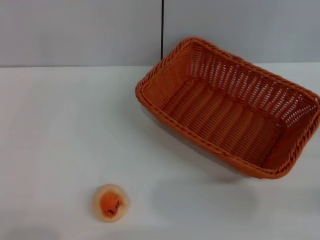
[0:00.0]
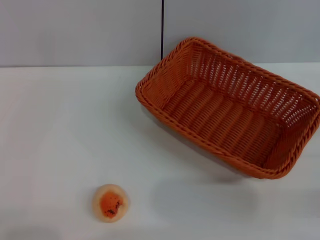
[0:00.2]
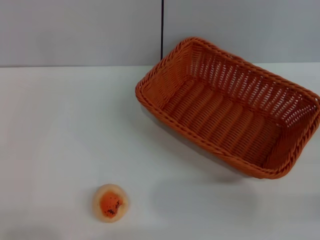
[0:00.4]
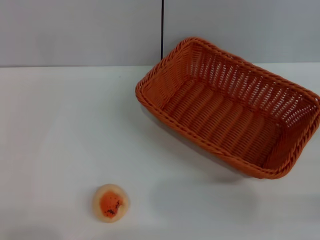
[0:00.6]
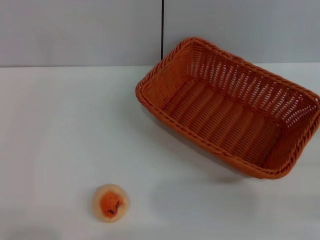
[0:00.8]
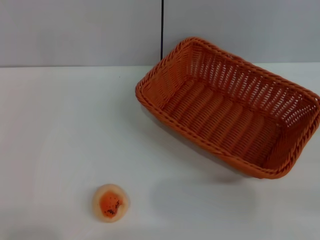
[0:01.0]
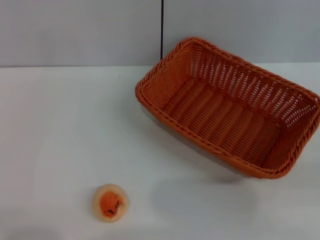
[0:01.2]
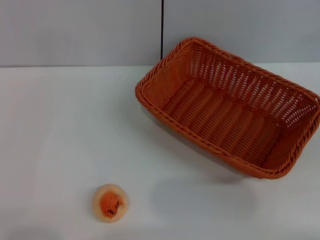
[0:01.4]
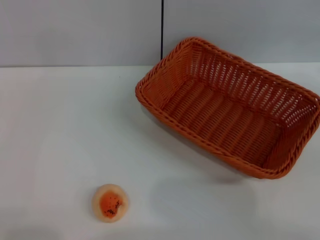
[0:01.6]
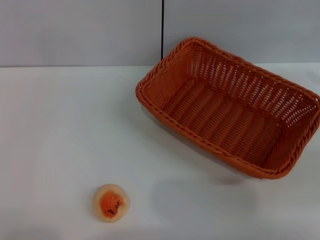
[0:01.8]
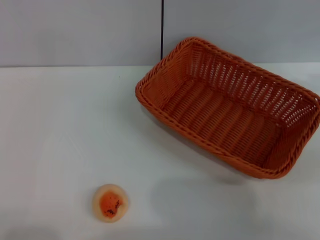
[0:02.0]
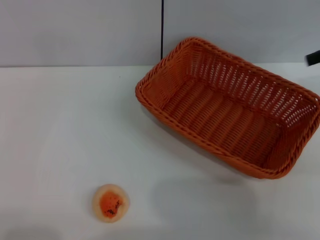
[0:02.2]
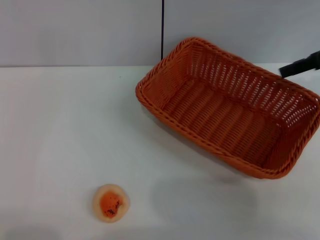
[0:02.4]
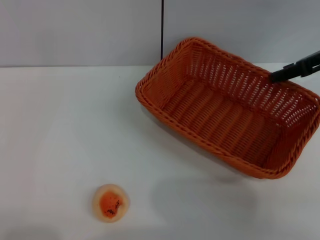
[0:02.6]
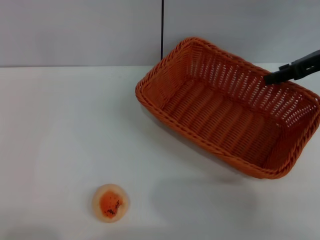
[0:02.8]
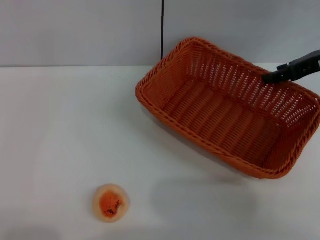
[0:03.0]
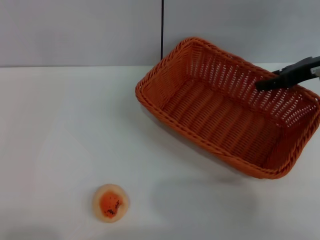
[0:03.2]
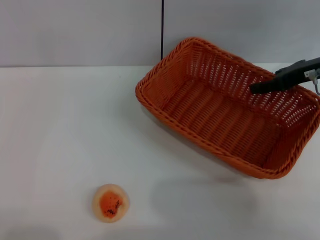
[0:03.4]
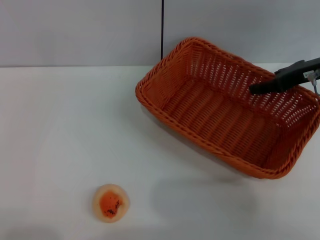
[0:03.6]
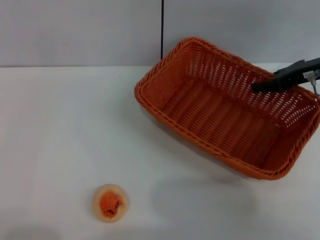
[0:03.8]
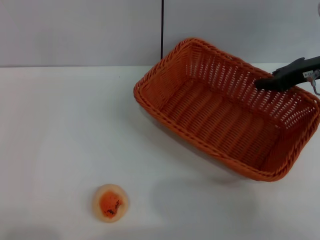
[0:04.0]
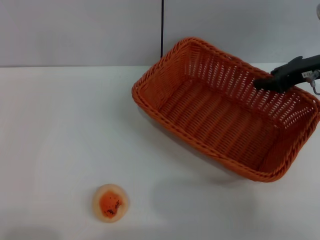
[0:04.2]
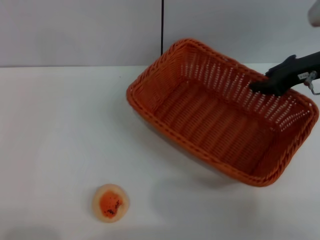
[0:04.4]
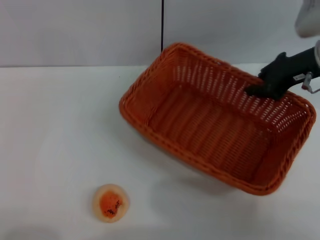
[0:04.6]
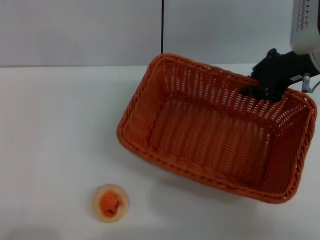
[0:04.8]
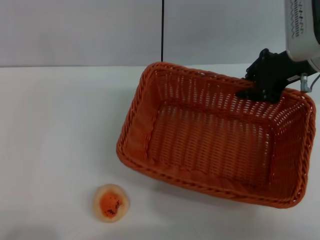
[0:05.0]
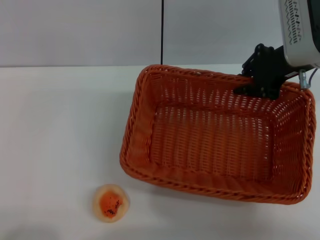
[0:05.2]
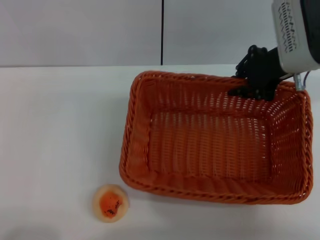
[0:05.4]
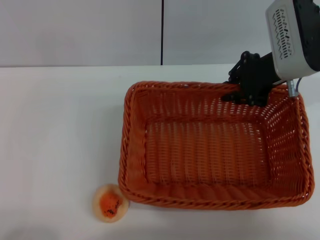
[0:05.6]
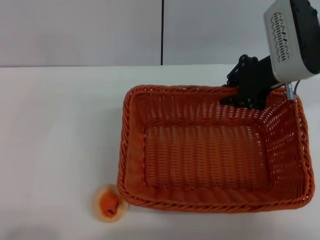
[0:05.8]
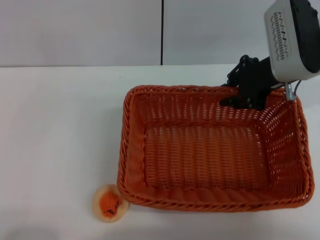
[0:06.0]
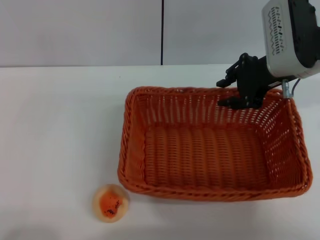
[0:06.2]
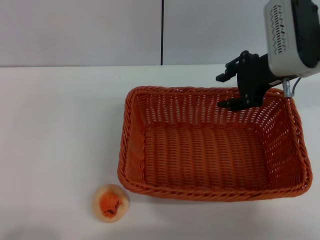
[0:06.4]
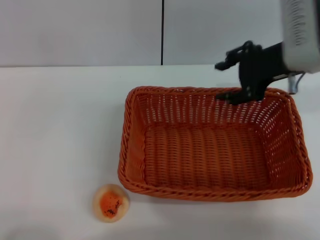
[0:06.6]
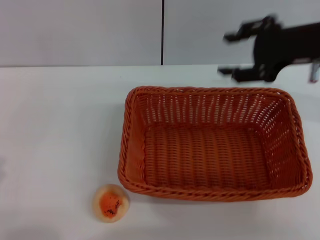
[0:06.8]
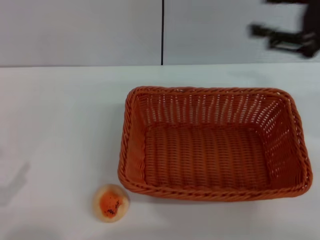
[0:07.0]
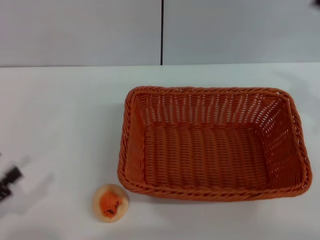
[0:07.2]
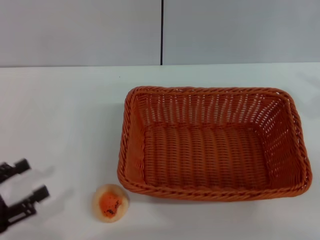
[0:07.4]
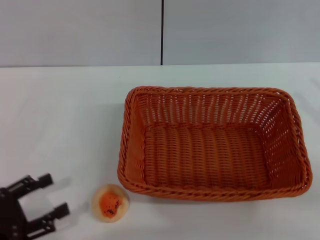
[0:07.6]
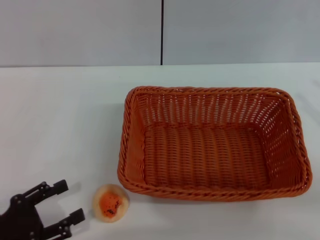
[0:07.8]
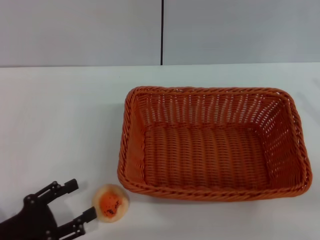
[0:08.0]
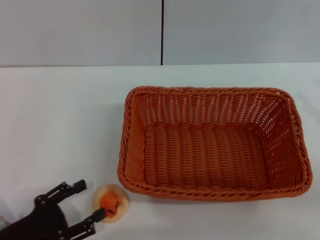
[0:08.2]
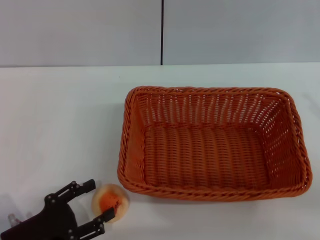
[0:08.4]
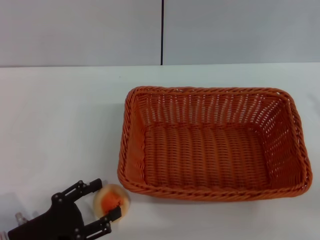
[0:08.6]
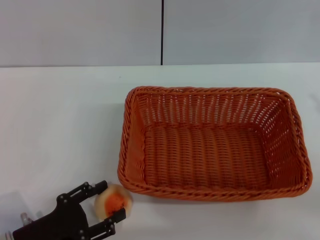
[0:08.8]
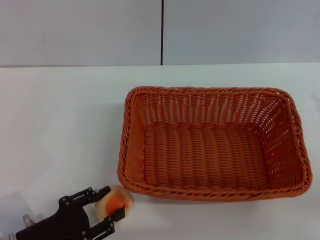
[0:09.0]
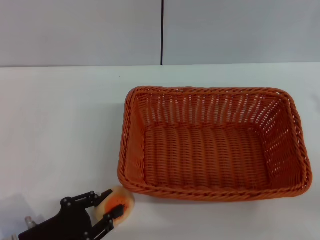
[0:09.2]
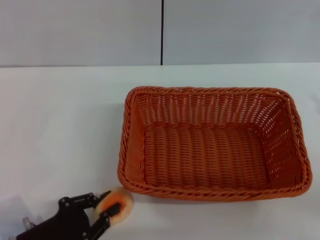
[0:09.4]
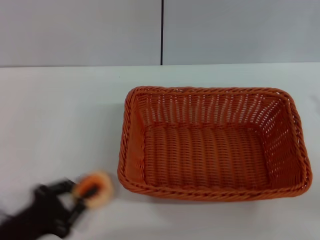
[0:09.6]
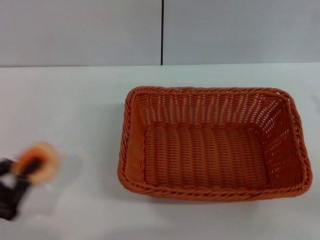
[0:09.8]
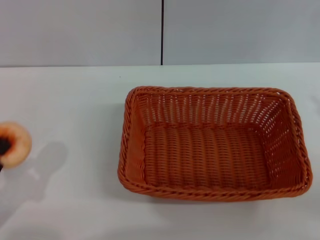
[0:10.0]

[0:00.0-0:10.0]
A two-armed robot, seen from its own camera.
Step, 0:00.0 to 0:06.6: Move the basket to the center of view with the right gripper.
Step, 0:06.8 to 0:09.6: Pick up the egg yolk pastry with the left gripper.
0:01.4 to 0:02.8: The right gripper goes about 20 cm to the left and forward.
0:02.8 to 0:04.2: The right gripper closes its fingers.
0:04.2 to 0:05.8: The right gripper shifts some 10 cm to the left.
0:05.8 to 0:07.2: The left gripper ends up about 5 cm from where it was; the right gripper is displaced to the right and backward by some 20 cm, and opens.
0:07.2 to 0:08.6: The left gripper moves to the right and downward, roughly 10 cm.
0:08.6 to 0:10.0: The left gripper heads to the left and upward, covering approximately 10 cm, and closes up.

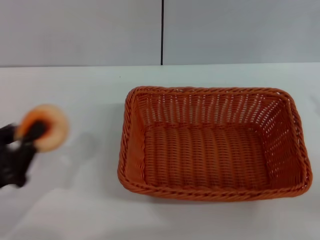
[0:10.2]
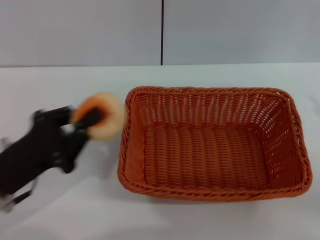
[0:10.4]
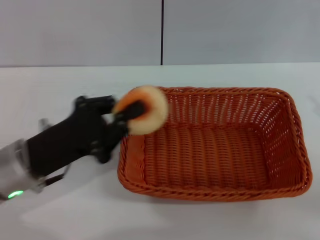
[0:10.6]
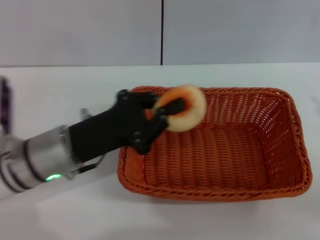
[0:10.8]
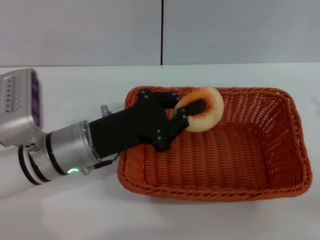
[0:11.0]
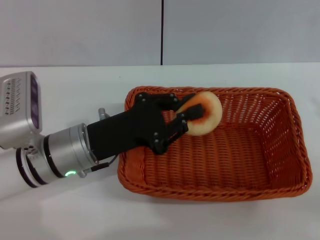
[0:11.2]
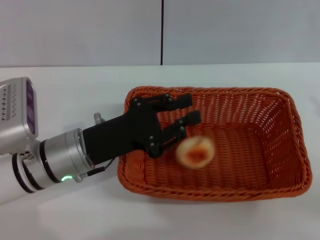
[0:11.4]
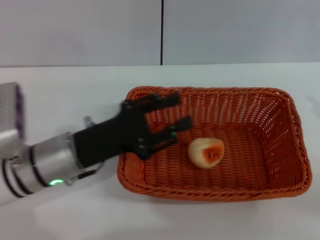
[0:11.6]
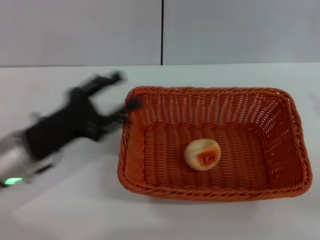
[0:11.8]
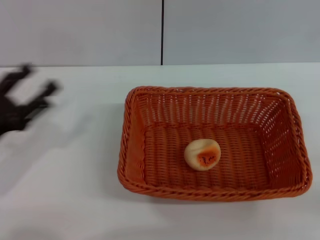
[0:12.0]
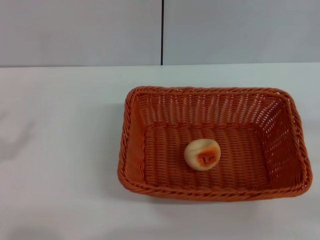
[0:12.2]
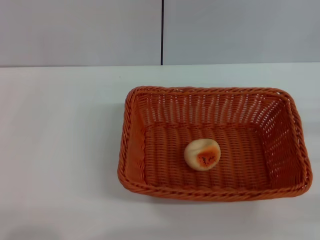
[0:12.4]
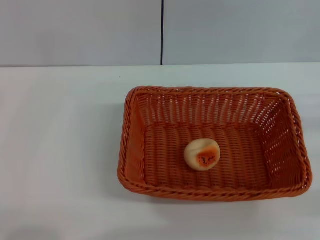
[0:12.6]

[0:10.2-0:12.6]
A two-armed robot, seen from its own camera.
Step, 0:10.2 to 0:11.4: Place the egg yolk pastry into the basket with the left gripper.
0:10.2 to 0:11.4: The left gripper goes some 15 cm to the right and forward.
0:11.4 to 0:12.6: The left gripper travels to the left and backward by some 25 cm, and opens its fingers; the right gripper travels downward by roughly 5 cm.

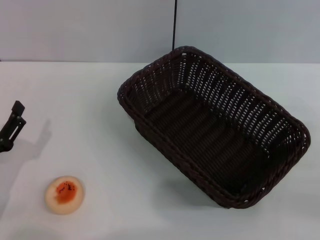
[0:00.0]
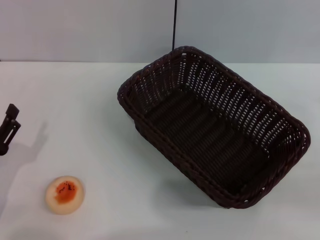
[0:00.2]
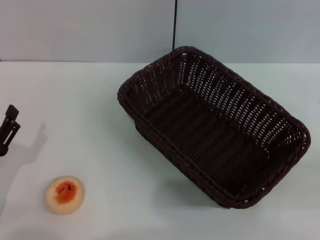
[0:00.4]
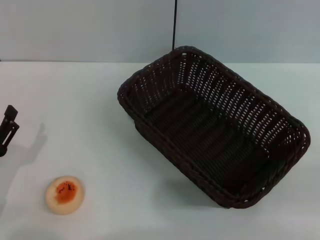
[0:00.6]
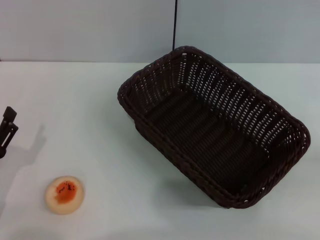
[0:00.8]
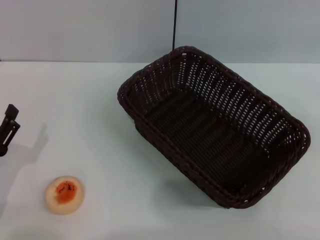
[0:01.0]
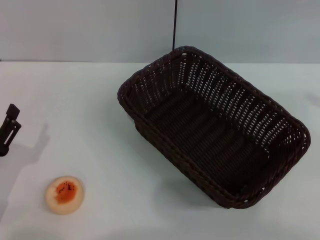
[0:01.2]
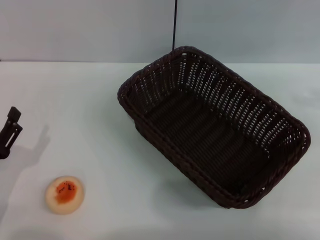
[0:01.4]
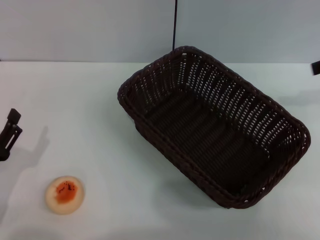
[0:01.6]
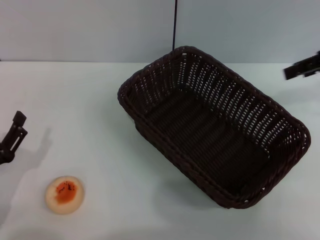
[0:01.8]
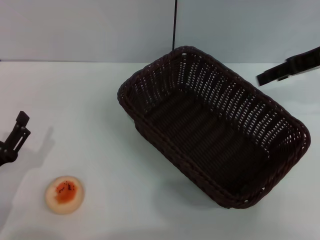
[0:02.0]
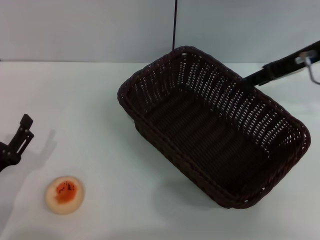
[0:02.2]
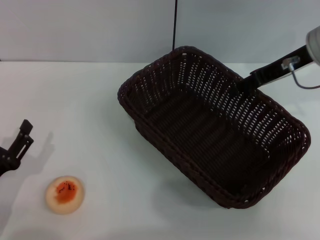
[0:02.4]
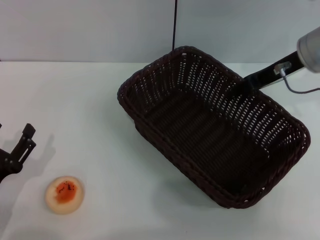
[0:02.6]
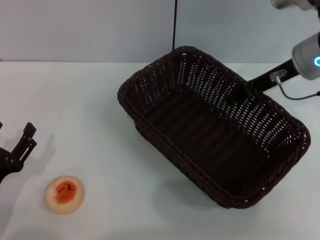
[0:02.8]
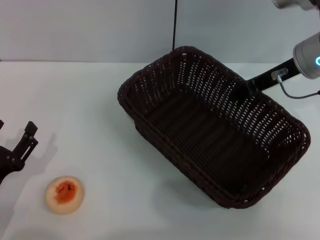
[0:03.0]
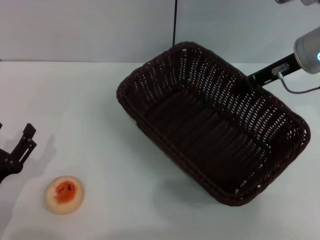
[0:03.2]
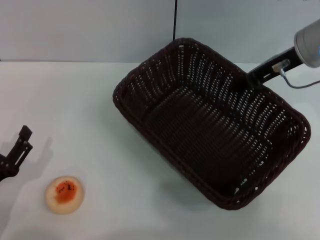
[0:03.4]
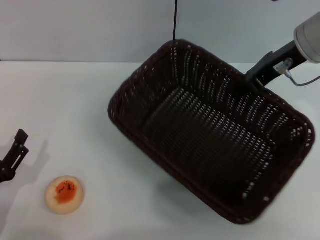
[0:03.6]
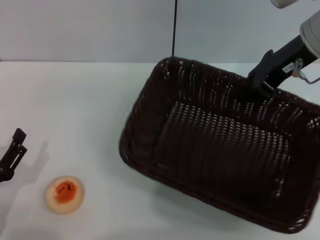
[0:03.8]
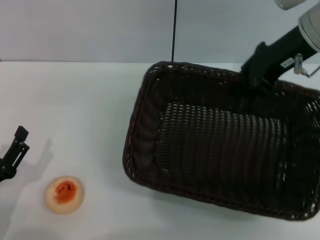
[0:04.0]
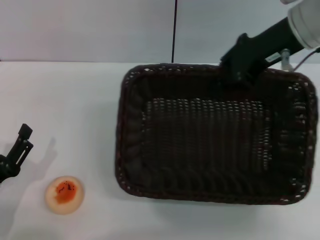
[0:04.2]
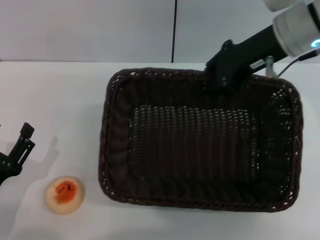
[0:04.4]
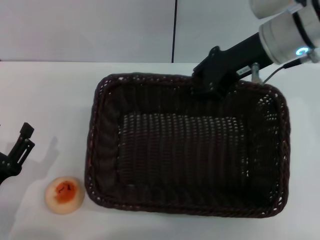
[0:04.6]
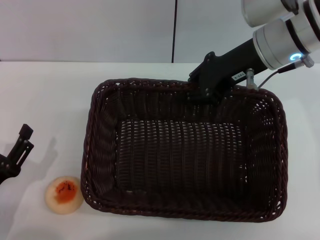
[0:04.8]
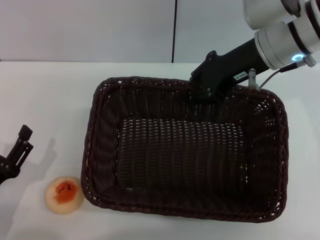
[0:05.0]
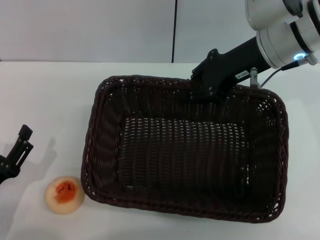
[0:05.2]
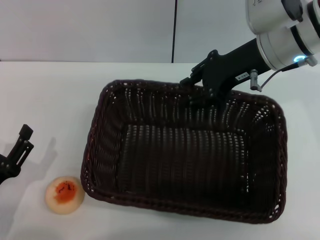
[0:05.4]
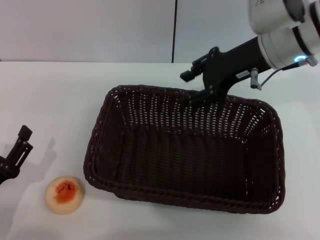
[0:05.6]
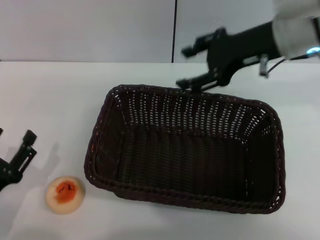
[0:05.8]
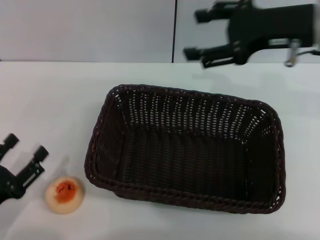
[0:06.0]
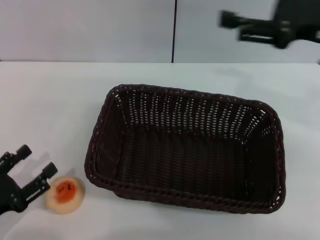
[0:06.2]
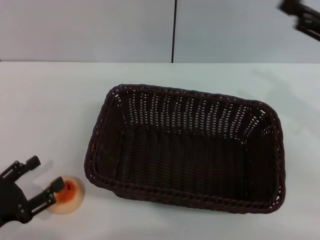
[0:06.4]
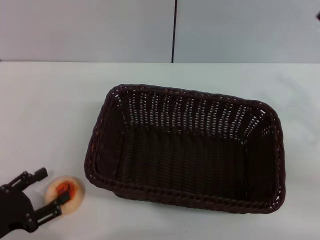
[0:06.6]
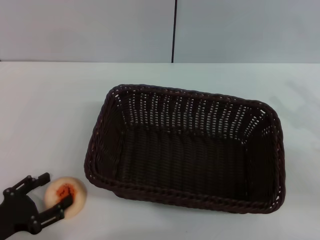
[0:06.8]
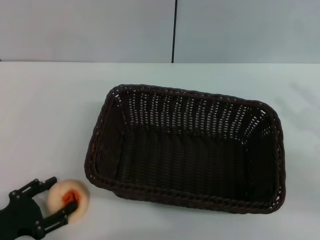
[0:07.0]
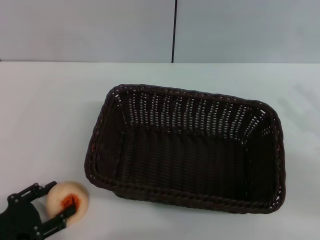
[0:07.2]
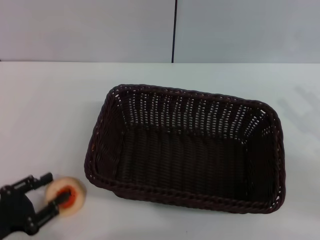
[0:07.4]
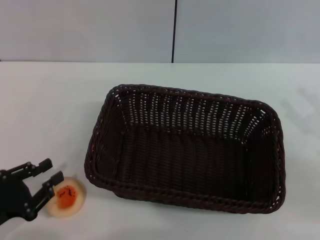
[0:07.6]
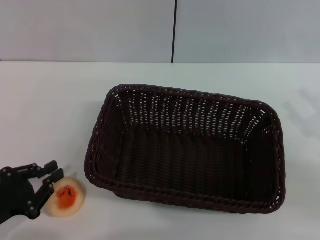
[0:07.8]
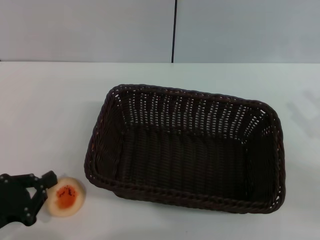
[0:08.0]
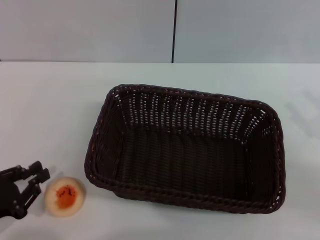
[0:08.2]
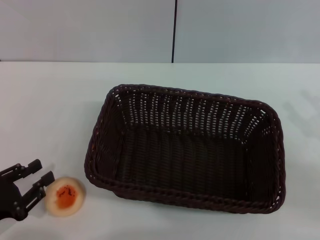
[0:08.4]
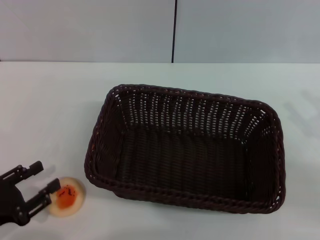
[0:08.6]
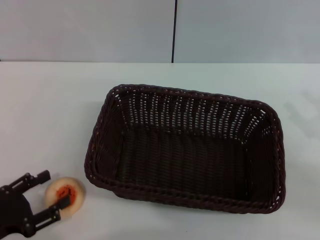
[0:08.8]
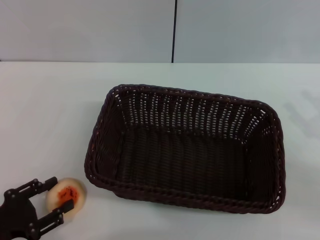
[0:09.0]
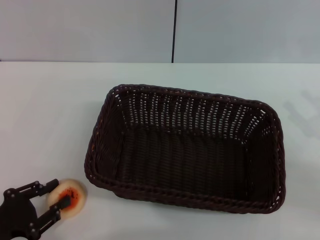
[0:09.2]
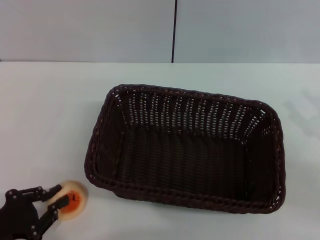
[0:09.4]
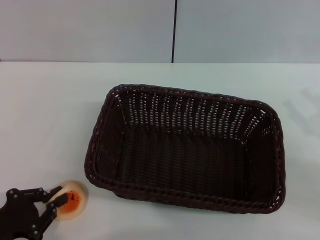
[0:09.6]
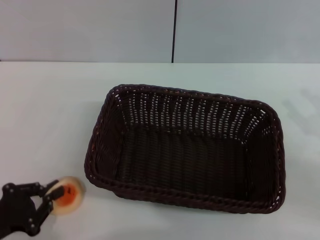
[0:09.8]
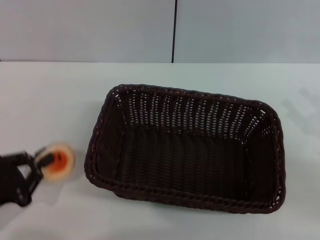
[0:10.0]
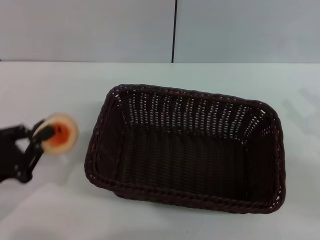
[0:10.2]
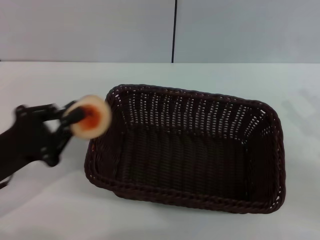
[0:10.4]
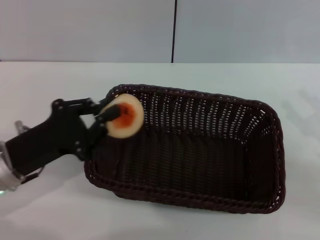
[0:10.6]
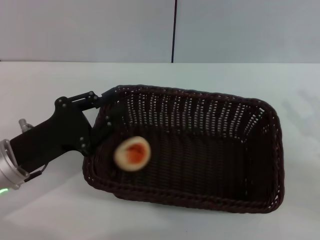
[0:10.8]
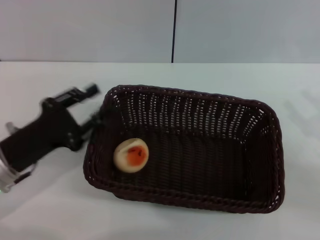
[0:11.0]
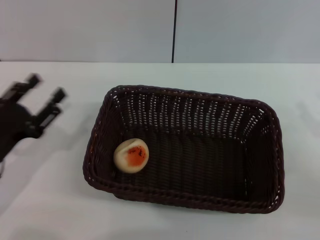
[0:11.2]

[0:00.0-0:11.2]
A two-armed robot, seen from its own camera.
Step, 0:00.0 to 0:05.8: Move the basket to the center of view with the right gripper.
Step, 0:06.0 to 0:10.2: Pick up the egg yolk pastry with the left gripper.
Step, 0:10.4 to 0:11.0: Place the egg yolk pastry into the basket with the left gripper.
0:00.0 to 0:01.6: The right gripper is displaced upward and forward by roughly 25 cm.
0:01.6 to 0:03.2: The right gripper heads to the left and downward, covering about 15 cm, and closes.
0:03.2 to 0:04.8: The right gripper shifts some 5 cm to the left.
0:04.8 to 0:06.4: The right gripper shifts approximately 15 cm to the right and backward, and opens its fingers.
0:06.4 to 0:08.0: The right gripper is displaced downward and backward by about 10 cm, while the left gripper closes.
0:08.0 to 0:09.6: The left gripper opens, then closes again.
0:09.6 to 0:11.2: The left gripper goes some 5 cm forward.
